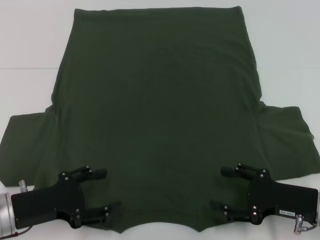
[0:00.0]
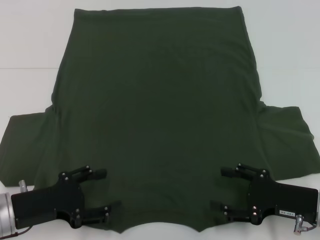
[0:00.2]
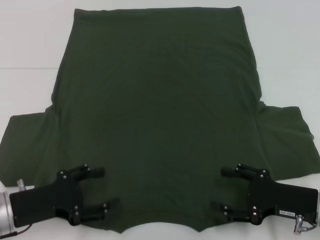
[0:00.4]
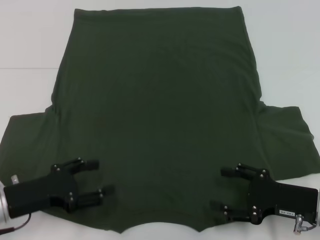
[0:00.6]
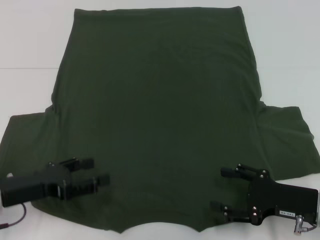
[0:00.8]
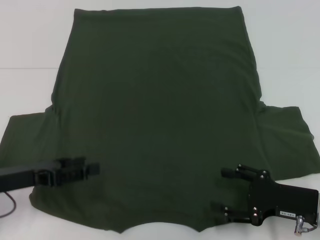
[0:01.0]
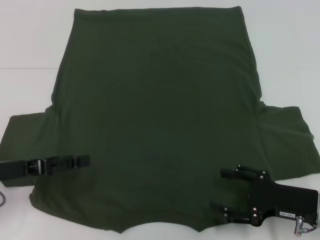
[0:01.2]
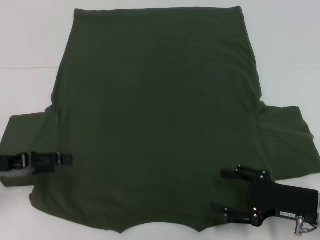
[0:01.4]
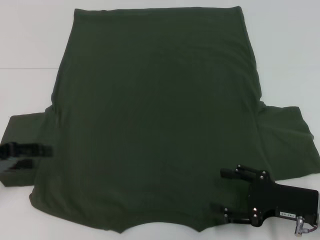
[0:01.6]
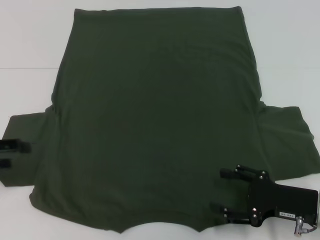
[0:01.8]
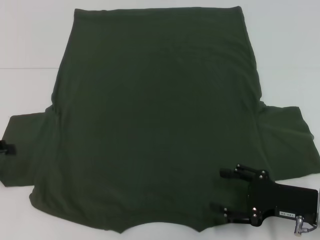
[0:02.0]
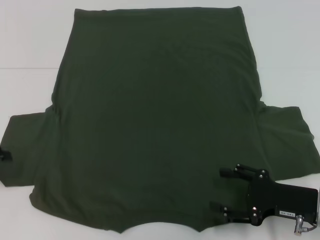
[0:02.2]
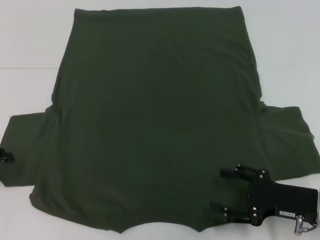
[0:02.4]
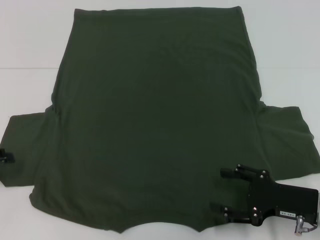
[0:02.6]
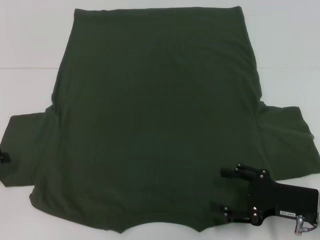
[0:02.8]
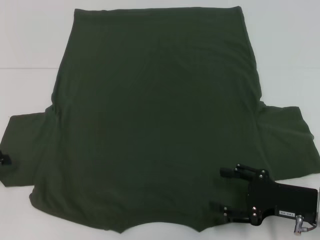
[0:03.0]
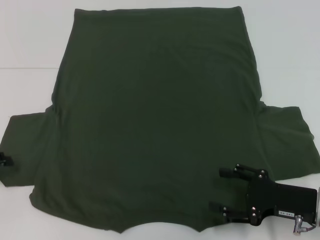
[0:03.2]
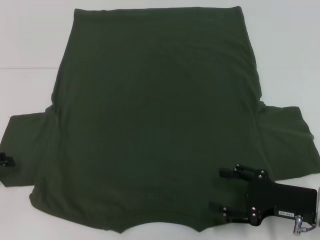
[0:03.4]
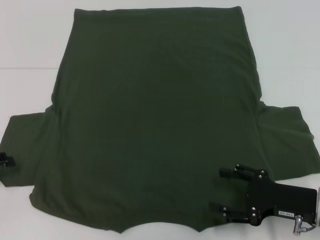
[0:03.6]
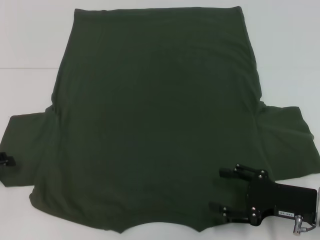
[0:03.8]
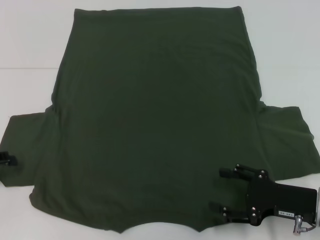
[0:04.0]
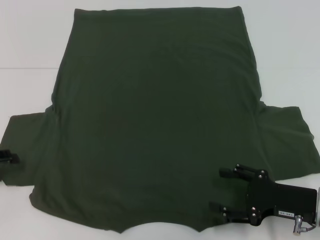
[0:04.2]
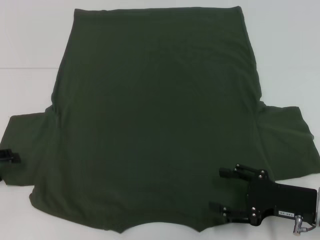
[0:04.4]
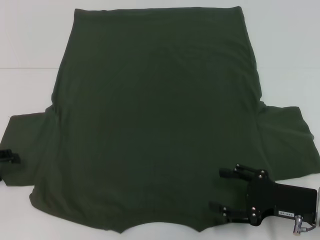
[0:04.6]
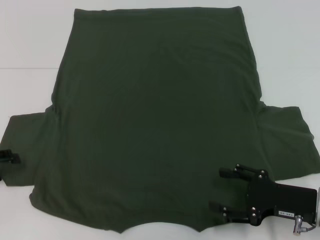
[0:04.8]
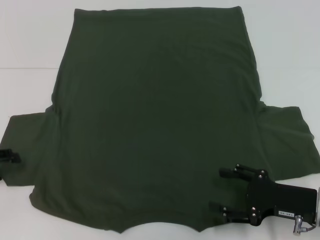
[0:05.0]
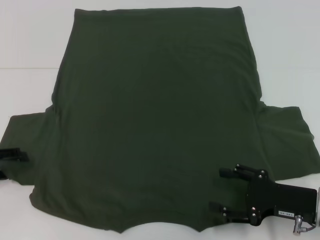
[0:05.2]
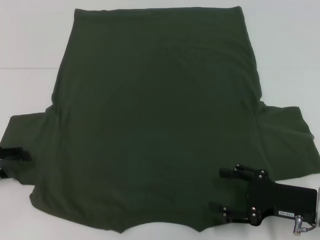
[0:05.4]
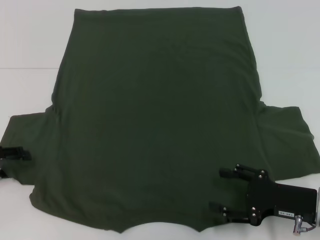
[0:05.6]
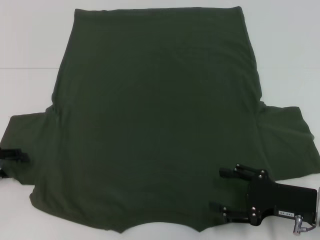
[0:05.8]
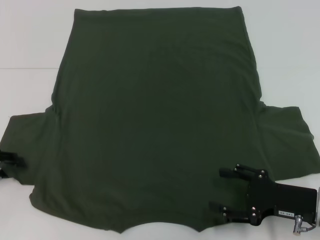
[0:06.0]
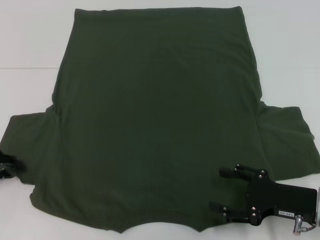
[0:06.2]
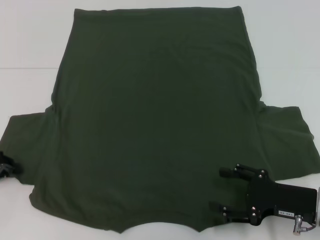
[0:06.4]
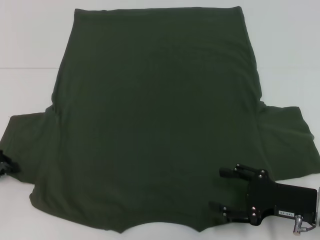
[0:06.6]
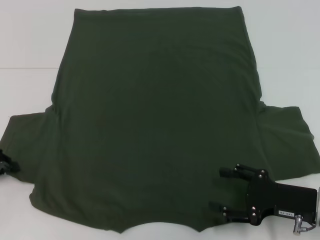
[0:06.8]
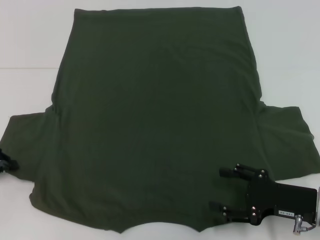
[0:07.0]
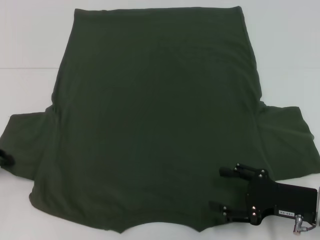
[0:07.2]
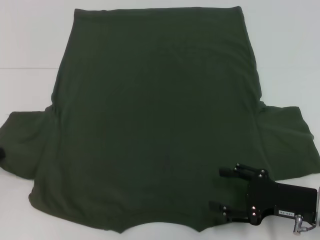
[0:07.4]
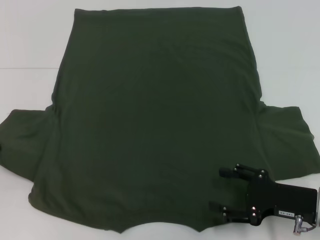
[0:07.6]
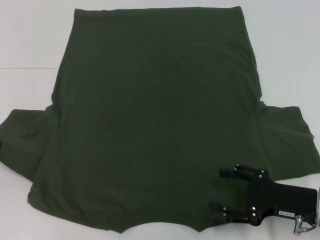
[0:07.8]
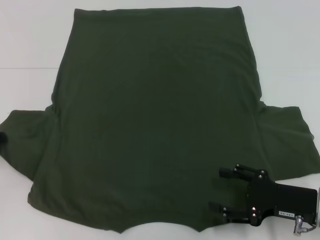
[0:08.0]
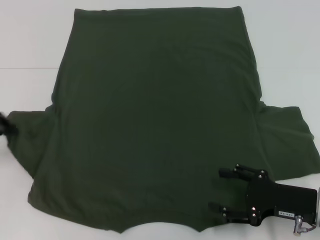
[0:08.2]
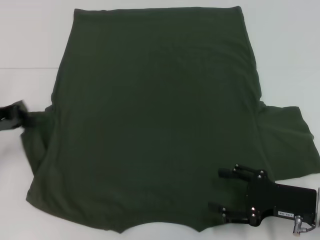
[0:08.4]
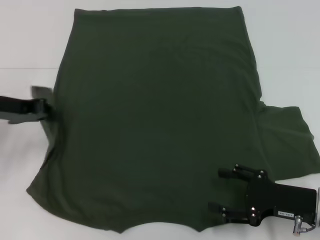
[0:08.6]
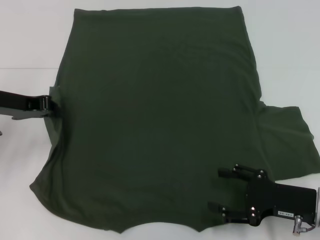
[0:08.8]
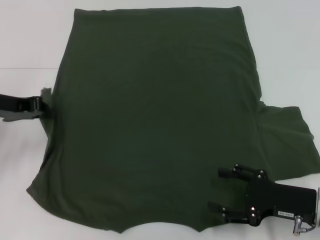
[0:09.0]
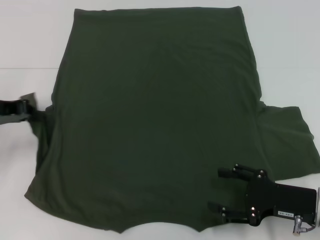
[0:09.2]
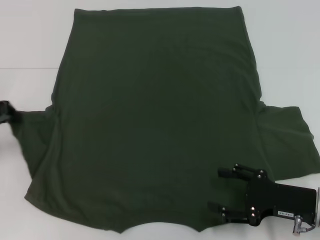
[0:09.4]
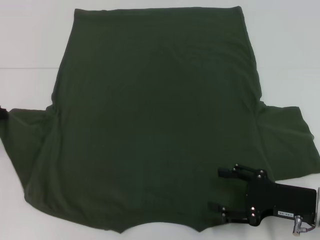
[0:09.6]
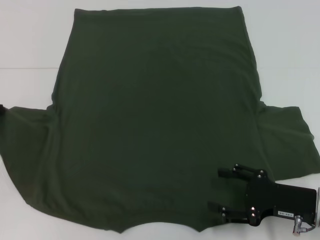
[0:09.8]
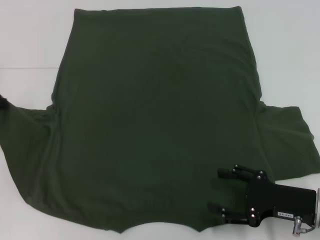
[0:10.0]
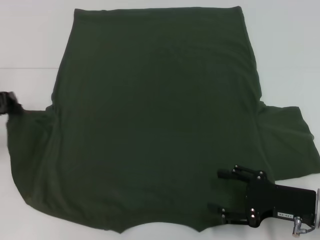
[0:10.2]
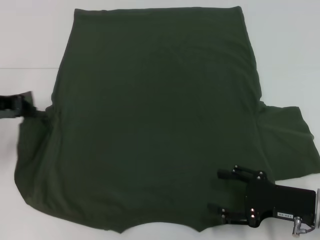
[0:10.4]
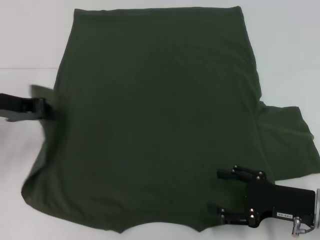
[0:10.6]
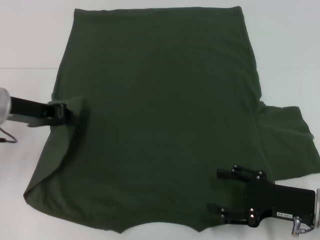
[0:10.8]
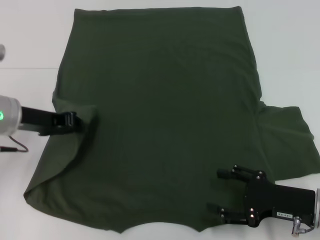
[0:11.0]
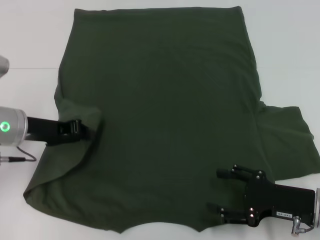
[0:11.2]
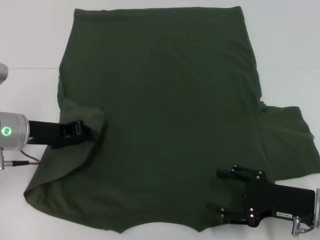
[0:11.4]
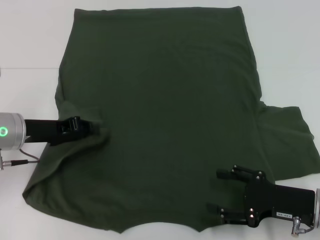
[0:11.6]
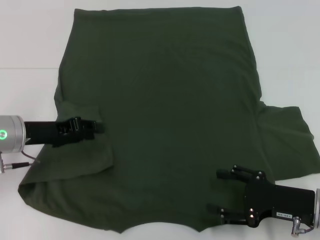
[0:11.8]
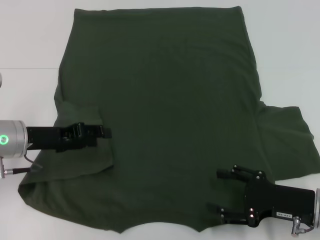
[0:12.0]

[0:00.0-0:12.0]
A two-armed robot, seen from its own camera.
Step, 0:00.0 to 0:11.6: Fold the bottom left sleeve with your left hand.
0:00.0 to 0:01.6: The left gripper shifts approximately 10 cm to the left, upward and forward.
0:01.6 to 0:03.0: The left gripper travels to the left by some 5 cm.
0:06.0 to 0:07.6: The left gripper closes up.
0:07.6 to 0:09.0: The left gripper moves to the right and forward, roughly 10 cm.
0:10.4 to 0:12.0: The left gripper is displaced downward and to the right by approximately 10 cm, and opens.

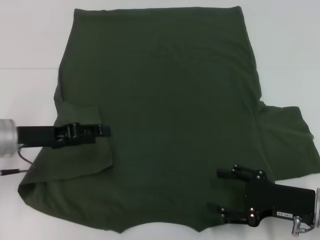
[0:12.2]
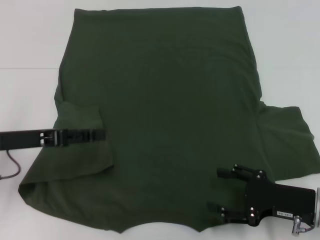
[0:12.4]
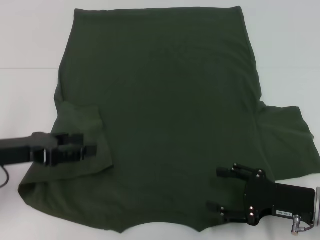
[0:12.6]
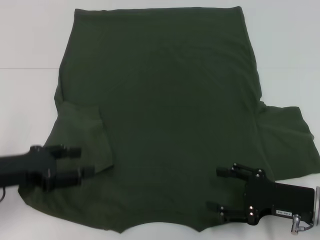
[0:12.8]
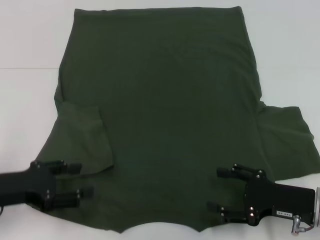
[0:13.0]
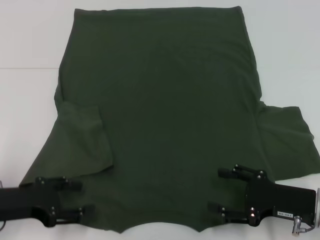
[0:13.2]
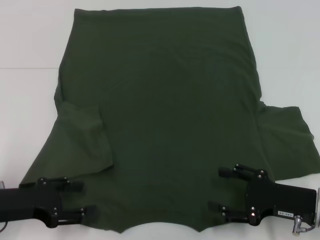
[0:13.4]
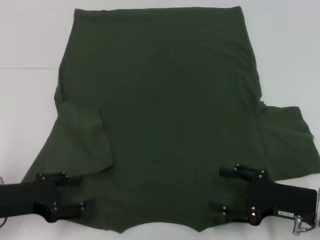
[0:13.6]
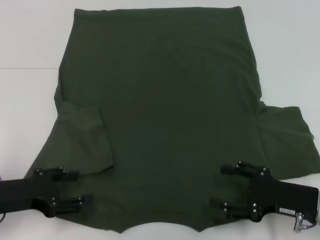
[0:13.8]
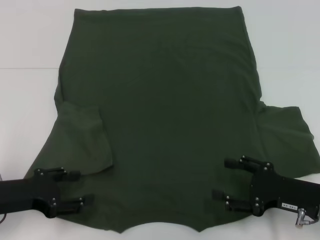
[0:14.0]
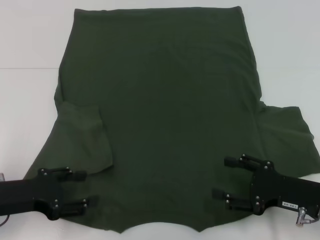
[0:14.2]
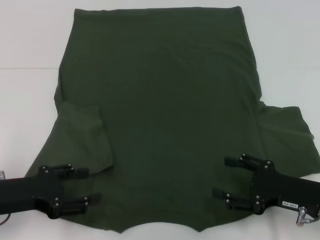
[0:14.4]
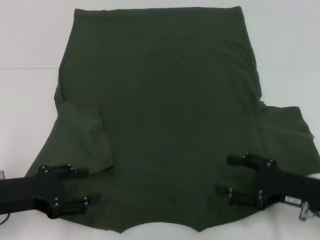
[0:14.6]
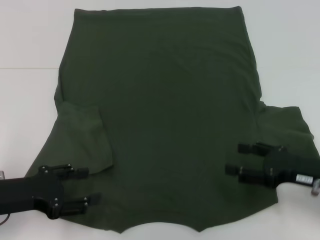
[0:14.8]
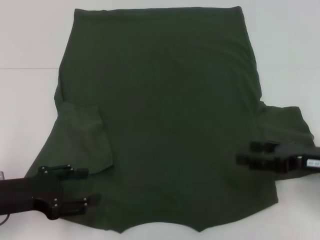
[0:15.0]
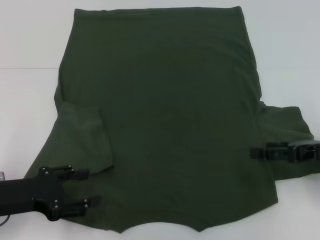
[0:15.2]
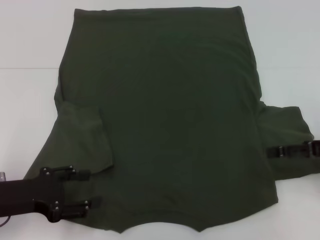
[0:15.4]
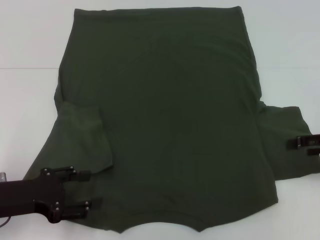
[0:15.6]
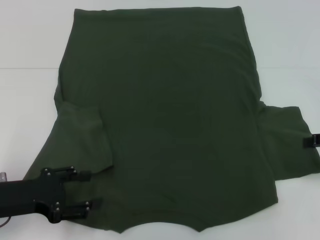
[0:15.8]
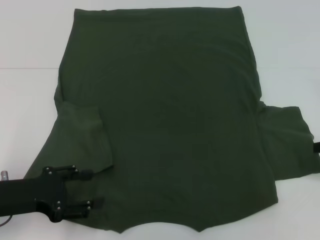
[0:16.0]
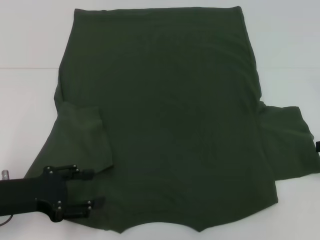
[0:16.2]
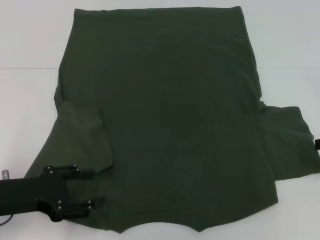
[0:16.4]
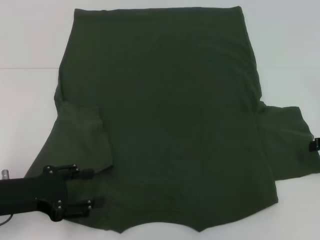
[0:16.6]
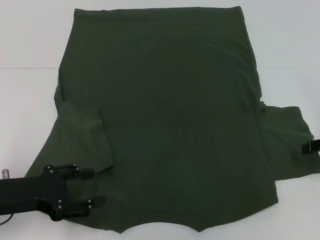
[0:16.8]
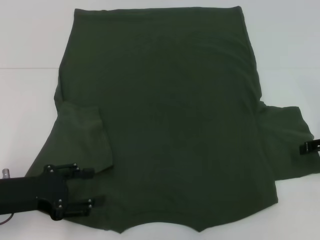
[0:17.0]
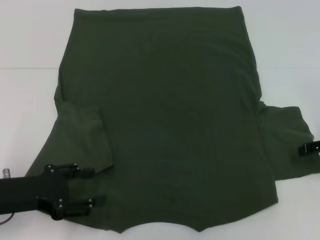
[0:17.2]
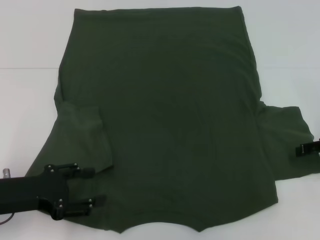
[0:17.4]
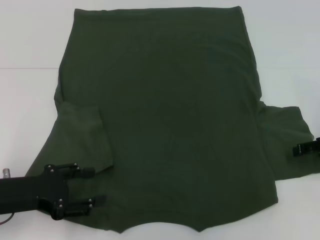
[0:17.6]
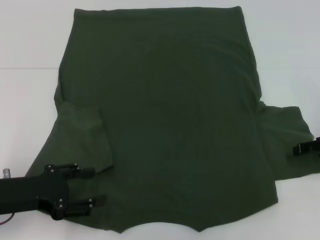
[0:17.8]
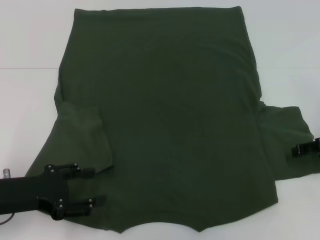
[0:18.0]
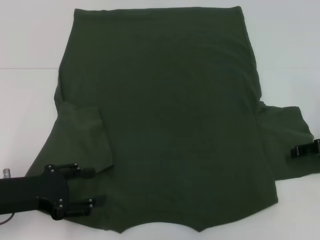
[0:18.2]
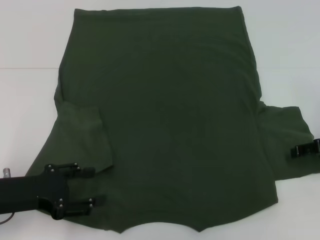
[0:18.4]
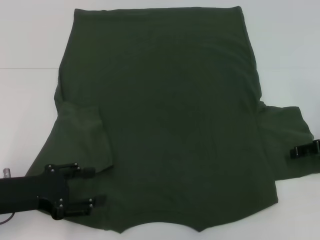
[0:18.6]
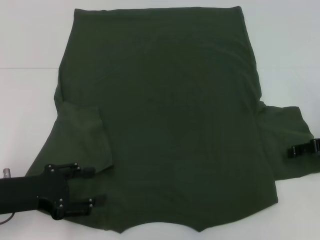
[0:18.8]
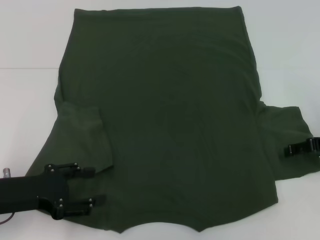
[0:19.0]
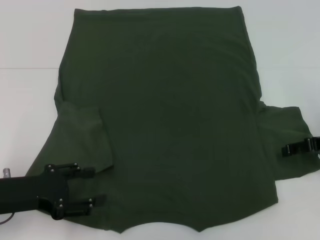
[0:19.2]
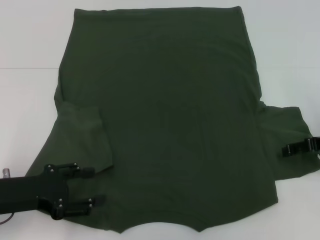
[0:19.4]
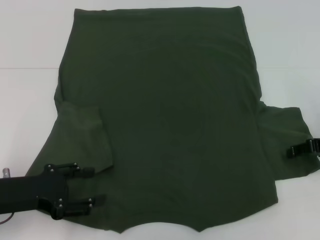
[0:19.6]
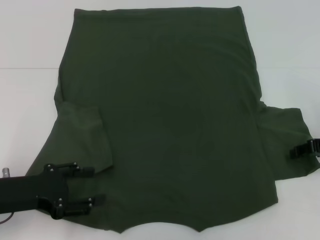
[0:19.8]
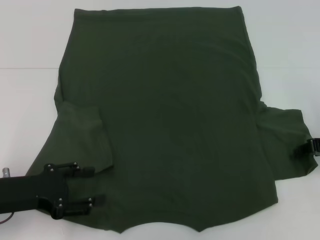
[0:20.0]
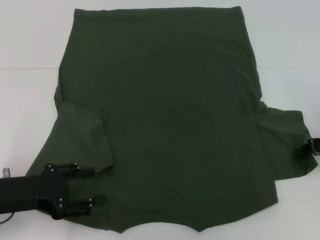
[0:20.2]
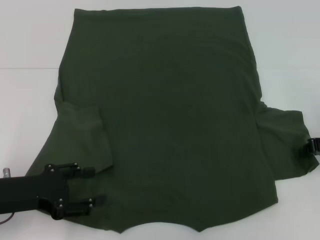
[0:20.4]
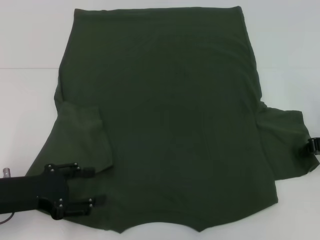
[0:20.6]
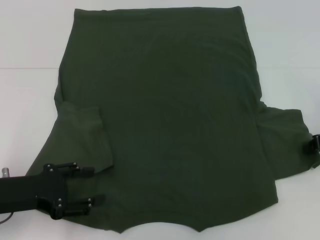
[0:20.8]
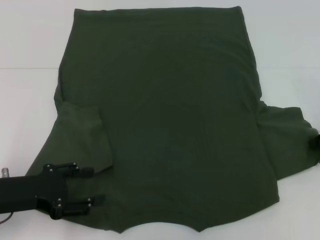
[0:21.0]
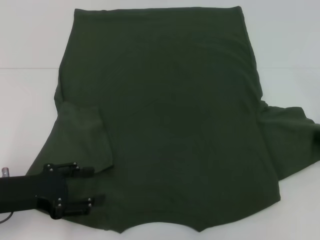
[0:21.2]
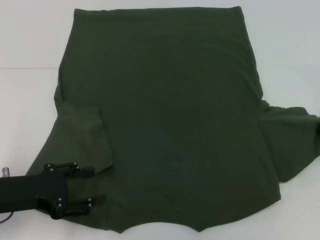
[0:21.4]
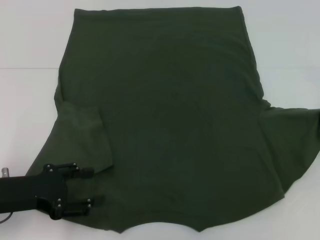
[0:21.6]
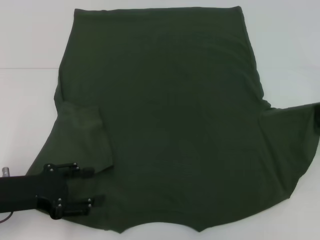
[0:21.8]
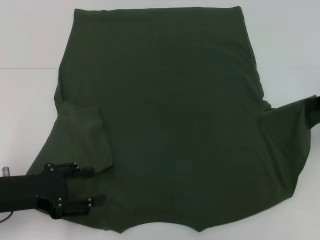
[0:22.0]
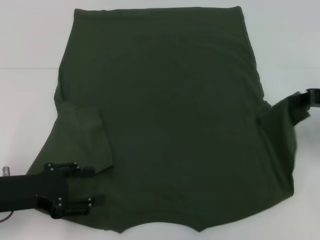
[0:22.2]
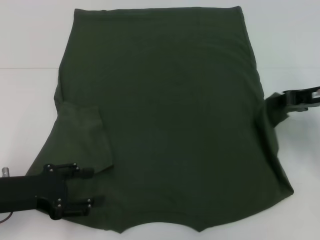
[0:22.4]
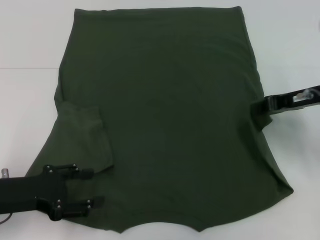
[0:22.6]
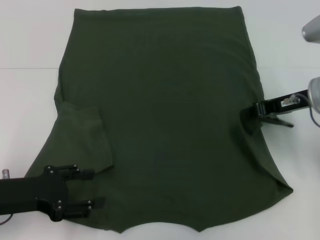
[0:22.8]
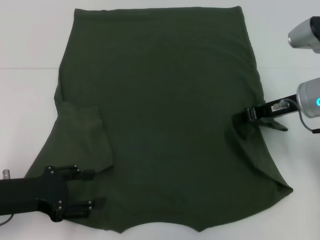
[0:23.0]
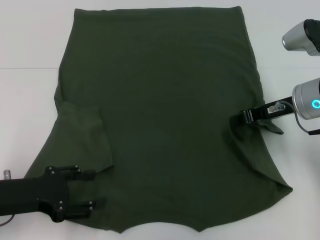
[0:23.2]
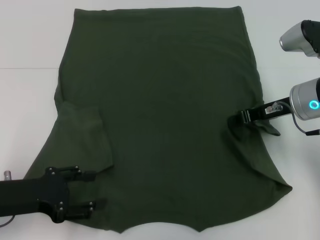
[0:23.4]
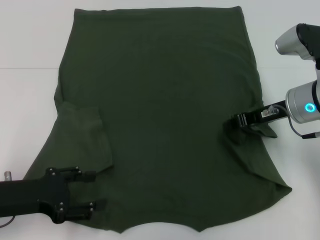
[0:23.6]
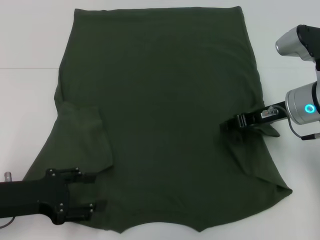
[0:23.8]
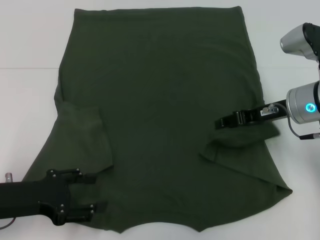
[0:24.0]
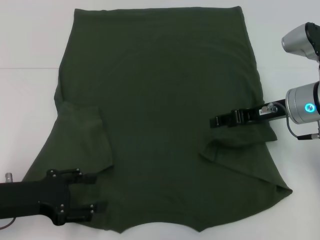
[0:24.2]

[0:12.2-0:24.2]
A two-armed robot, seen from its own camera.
0:12.2 to 0:13.8: The left gripper shifts roughly 10 cm backward.
0:13.8 to 0:15.2: The right gripper travels upward and forward by about 10 cm.
0:15.2 to 0:16.6: The right gripper is displaced to the right by some 5 cm.
0:19.8 to 0:21.2: The right gripper closes.
0:21.2 to 0:22.6: The right gripper goes approximately 10 cm to the left.
0:22.6 to 0:24.2: The right gripper opens up.
